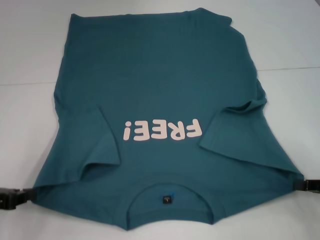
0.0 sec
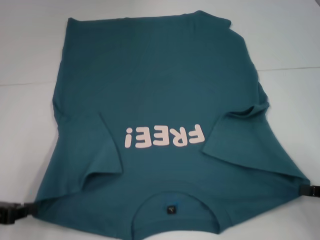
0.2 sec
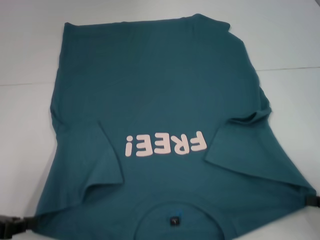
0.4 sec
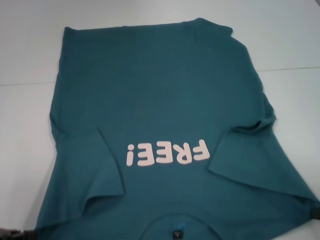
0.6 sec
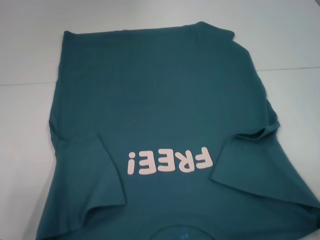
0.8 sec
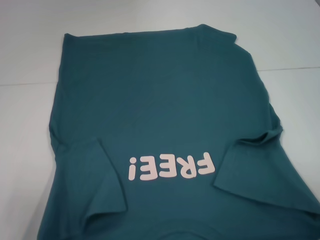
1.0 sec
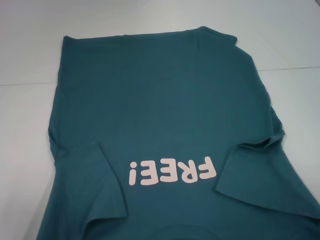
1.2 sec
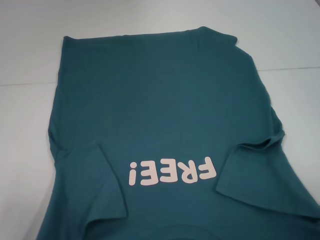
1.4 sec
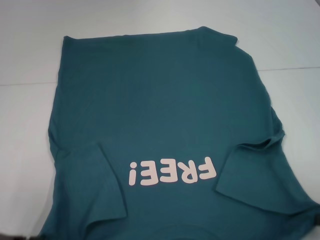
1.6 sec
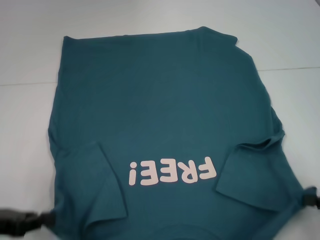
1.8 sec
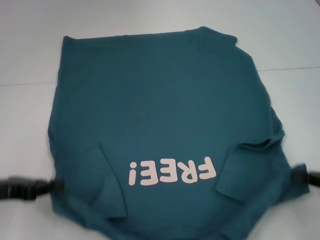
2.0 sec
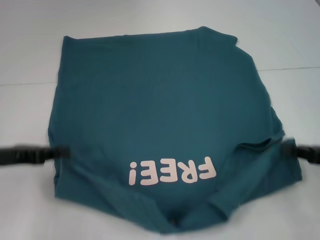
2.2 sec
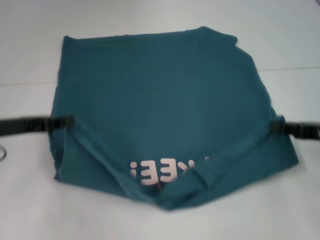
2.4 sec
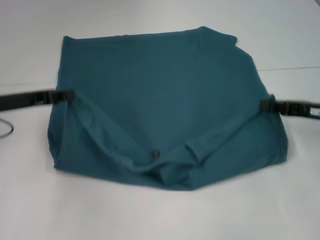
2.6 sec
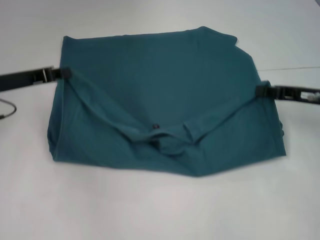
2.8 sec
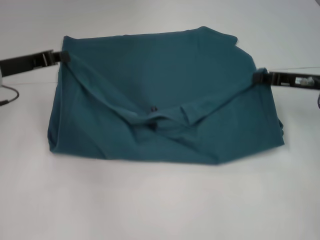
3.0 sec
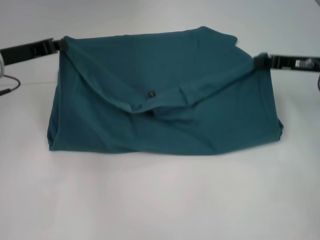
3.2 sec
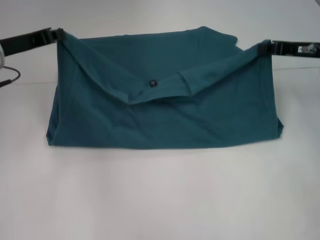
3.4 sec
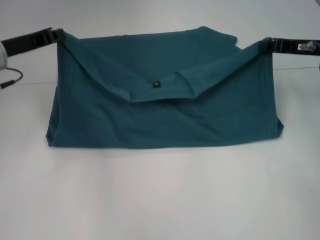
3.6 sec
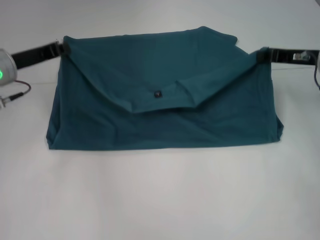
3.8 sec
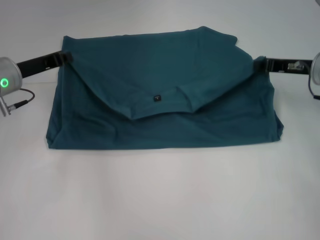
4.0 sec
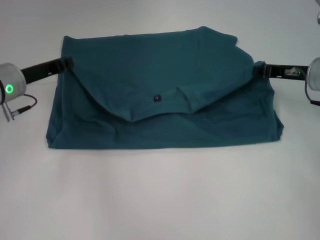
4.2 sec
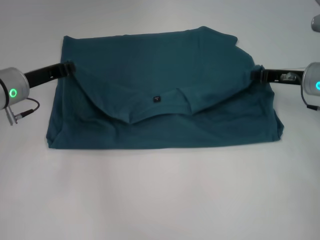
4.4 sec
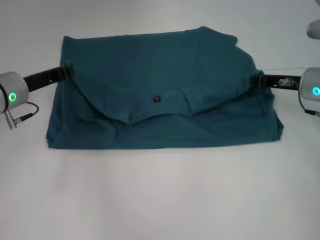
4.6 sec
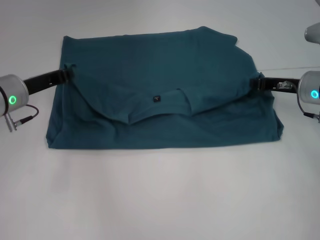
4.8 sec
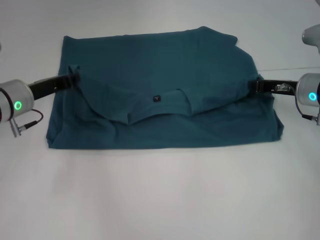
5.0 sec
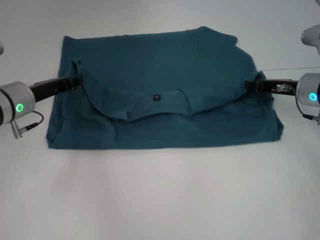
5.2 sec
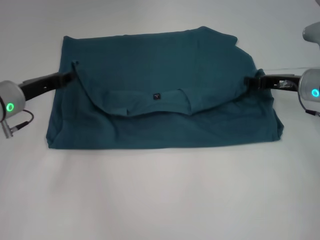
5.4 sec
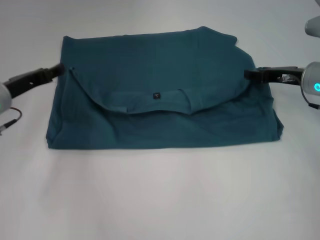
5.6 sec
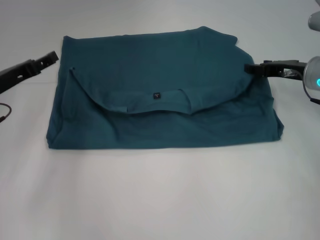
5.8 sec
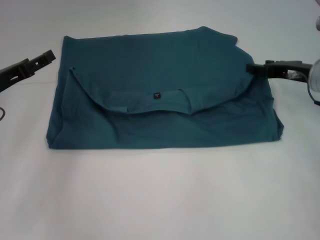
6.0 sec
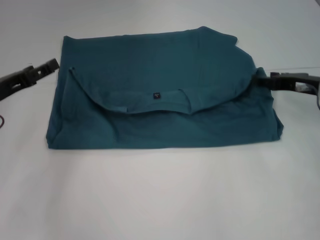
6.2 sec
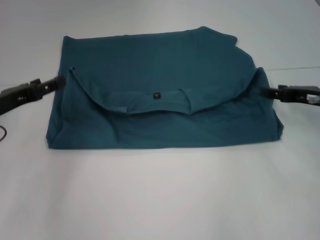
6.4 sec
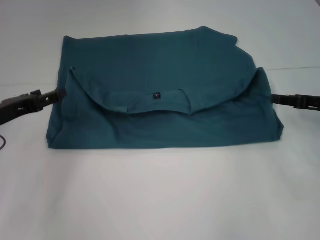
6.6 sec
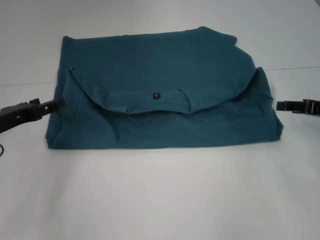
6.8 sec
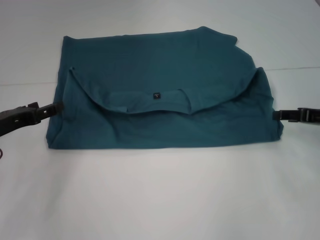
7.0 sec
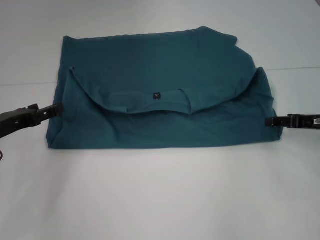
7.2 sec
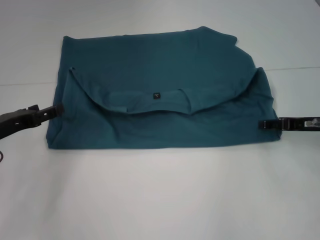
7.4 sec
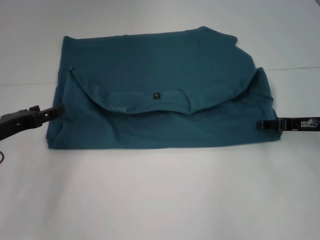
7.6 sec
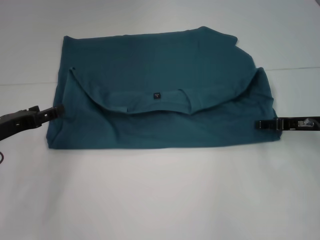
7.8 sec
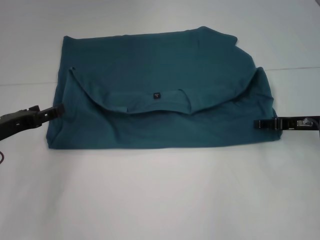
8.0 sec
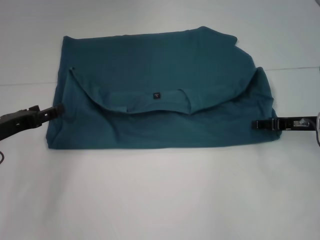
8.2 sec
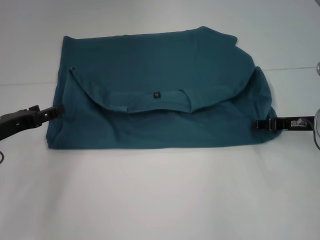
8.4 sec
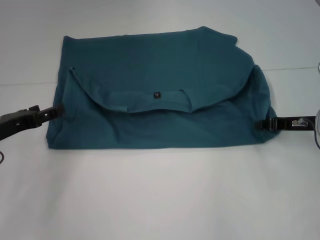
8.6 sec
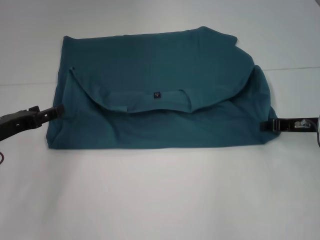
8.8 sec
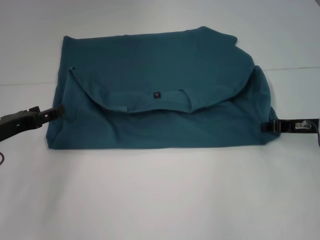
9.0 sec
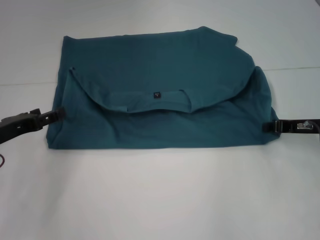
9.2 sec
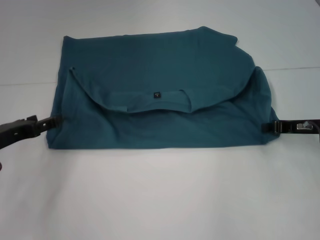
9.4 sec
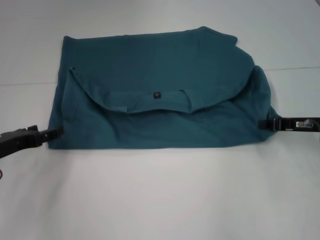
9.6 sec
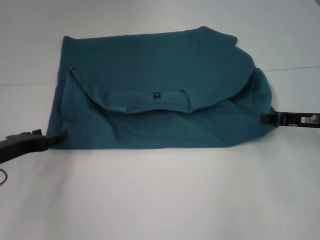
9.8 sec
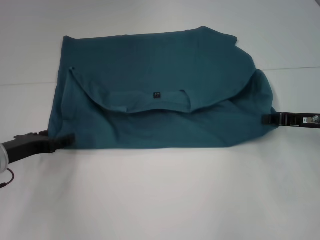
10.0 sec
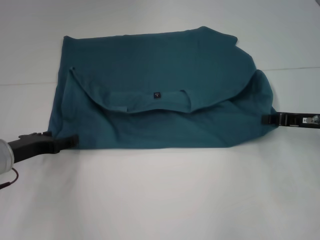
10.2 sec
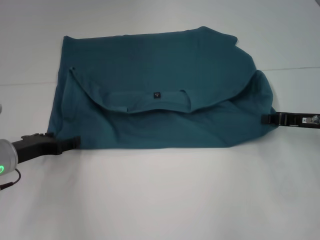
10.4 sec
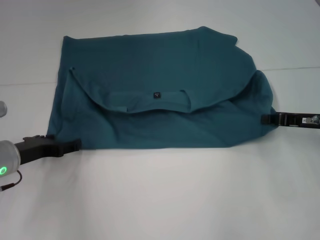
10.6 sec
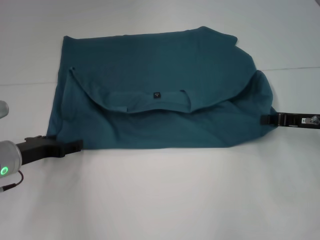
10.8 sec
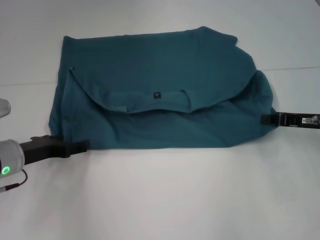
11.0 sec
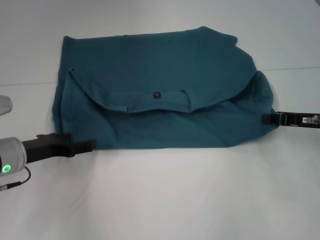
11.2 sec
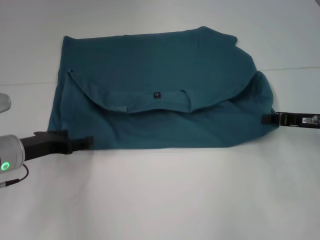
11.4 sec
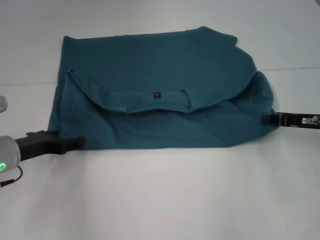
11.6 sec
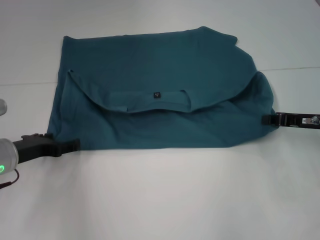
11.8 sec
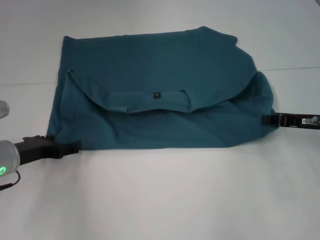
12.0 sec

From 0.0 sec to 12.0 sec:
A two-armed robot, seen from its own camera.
Step, from 0.0 sec to 5.4 sec: Fold the clothes to the left.
Step, from 0.0 sec to 5.4 sec: Fold the clothes to the right.
From 0.0 sec to 1.6 sec: The two grippers go approximately 5 cm backward.
From 1.6 sec to 3.0 sec: The left gripper goes approximately 20 cm forward and upward. Meanwhile the right gripper moves forward, about 25 cm.
From 3.0 sec to 4.4 sec: The left gripper changes place by roughly 5 cm.
From 4.4 sec to 6.0 sec: The right gripper opens up. Meanwhile the left gripper ends up about 5 cm from where it was, and opens up.
From 6.0 sec to 7.6 sec: The left gripper ends up some 5 cm from where it was, while the right gripper shifts by approximately 5 cm.
From 7.6 sec to 9.0 sec: The right gripper closes its fingers.
From 9.0 sec to 10.4 sec: The grippers move only a little.
From 10.4 sec to 12.0 sec: There are only small adjustments of the grippers.

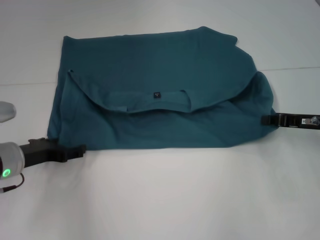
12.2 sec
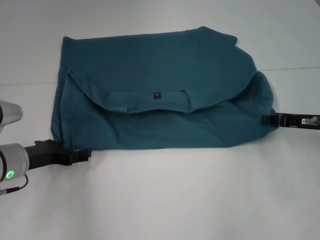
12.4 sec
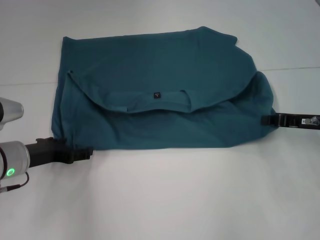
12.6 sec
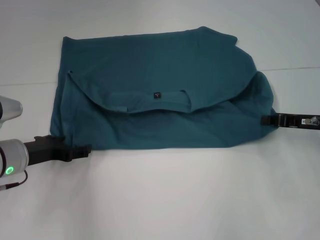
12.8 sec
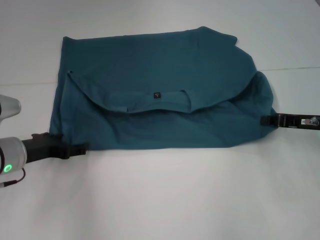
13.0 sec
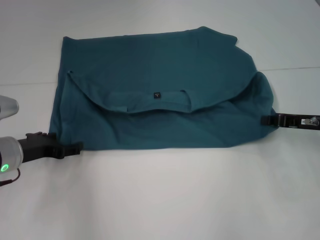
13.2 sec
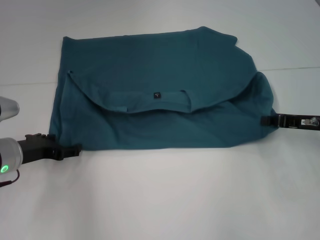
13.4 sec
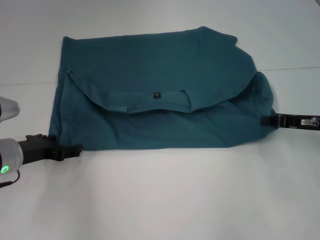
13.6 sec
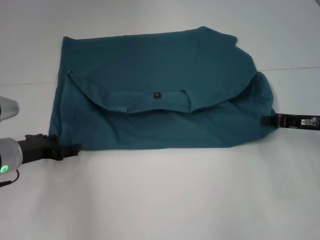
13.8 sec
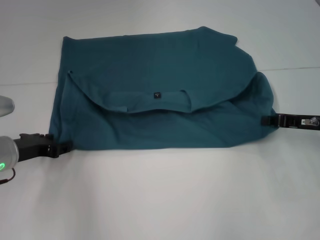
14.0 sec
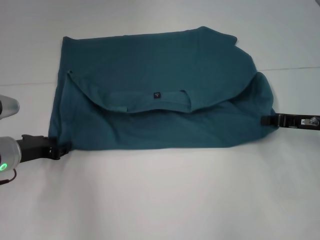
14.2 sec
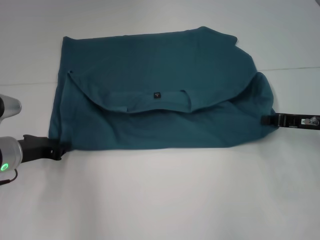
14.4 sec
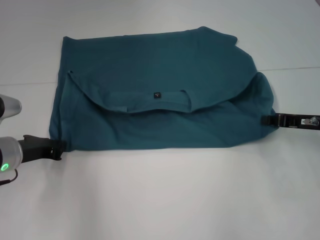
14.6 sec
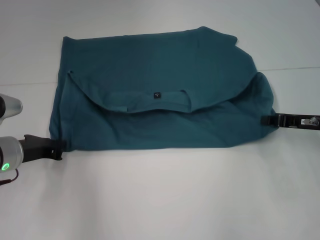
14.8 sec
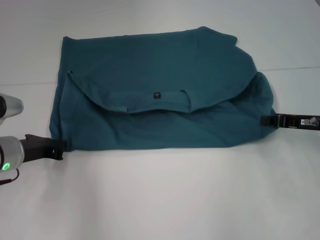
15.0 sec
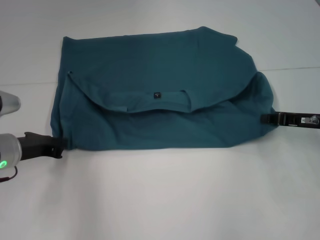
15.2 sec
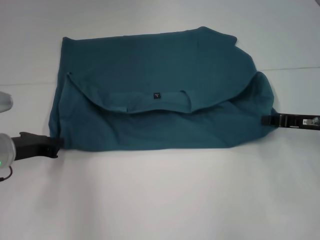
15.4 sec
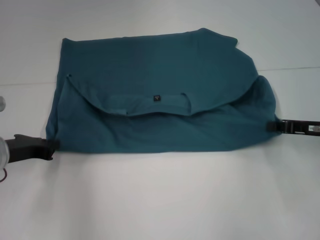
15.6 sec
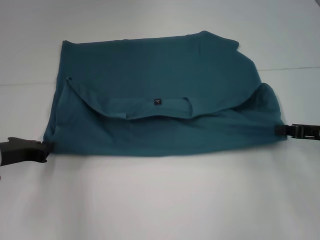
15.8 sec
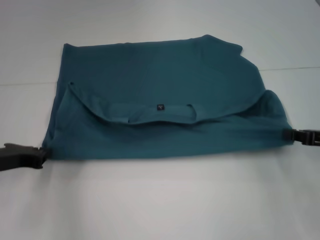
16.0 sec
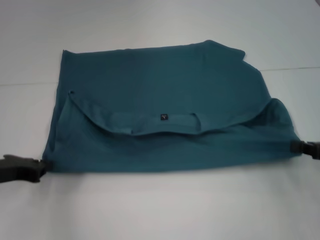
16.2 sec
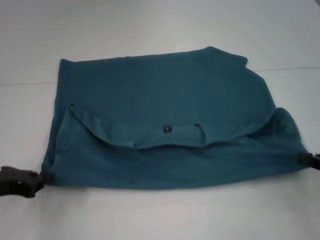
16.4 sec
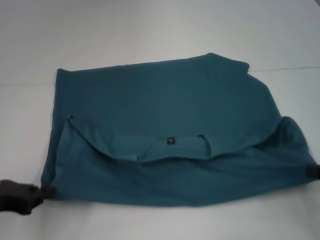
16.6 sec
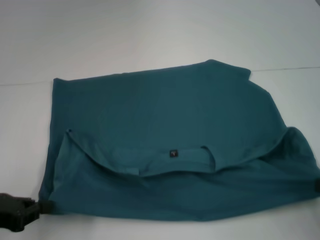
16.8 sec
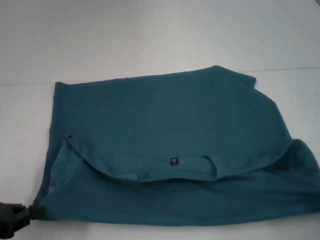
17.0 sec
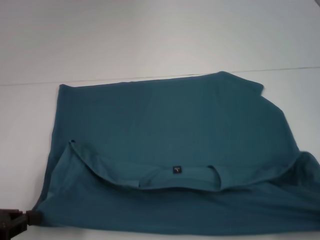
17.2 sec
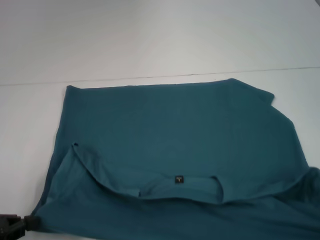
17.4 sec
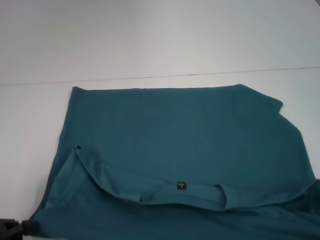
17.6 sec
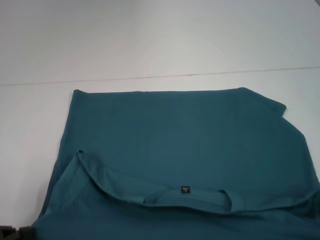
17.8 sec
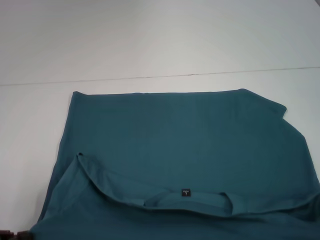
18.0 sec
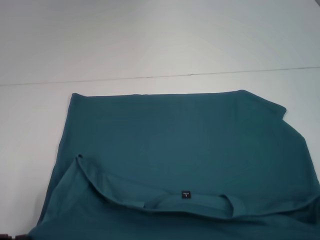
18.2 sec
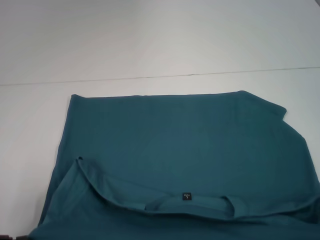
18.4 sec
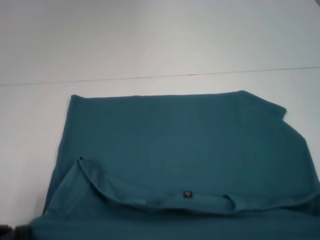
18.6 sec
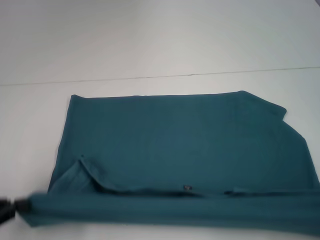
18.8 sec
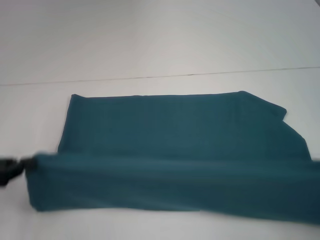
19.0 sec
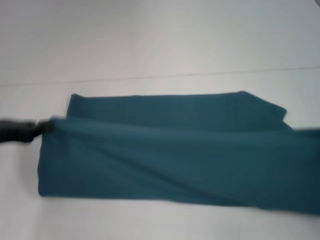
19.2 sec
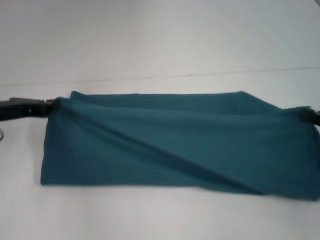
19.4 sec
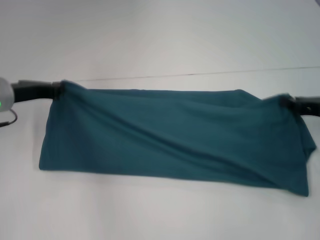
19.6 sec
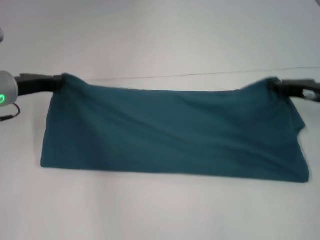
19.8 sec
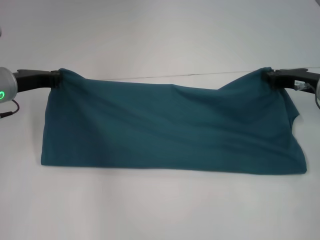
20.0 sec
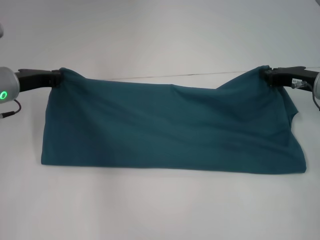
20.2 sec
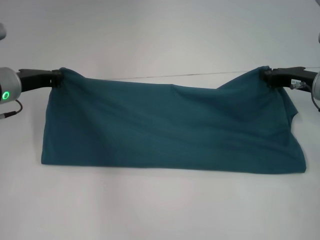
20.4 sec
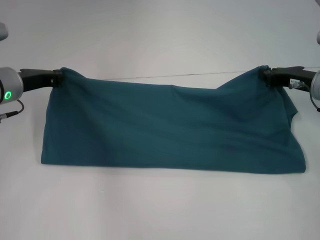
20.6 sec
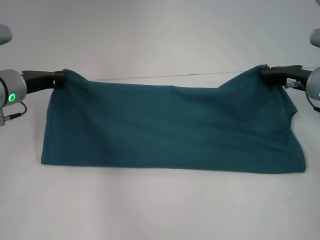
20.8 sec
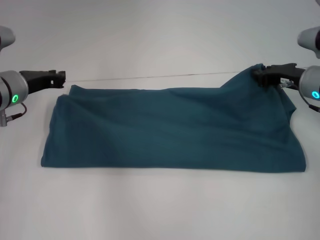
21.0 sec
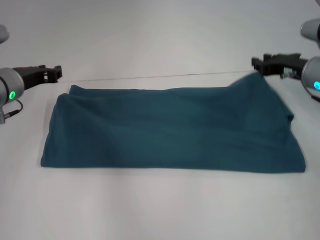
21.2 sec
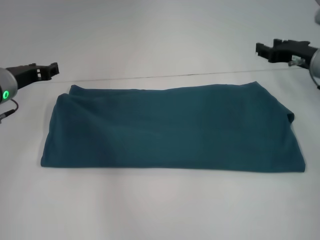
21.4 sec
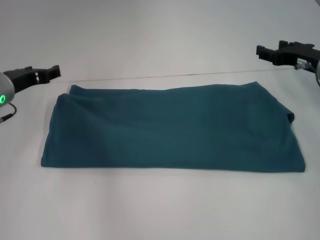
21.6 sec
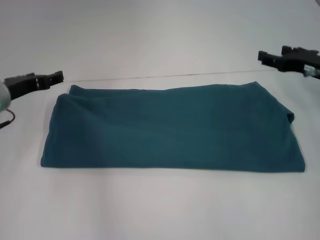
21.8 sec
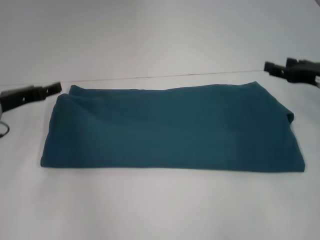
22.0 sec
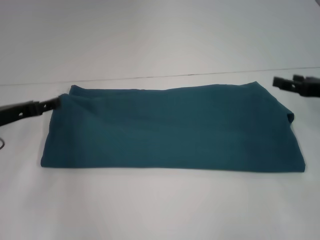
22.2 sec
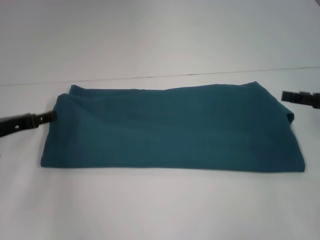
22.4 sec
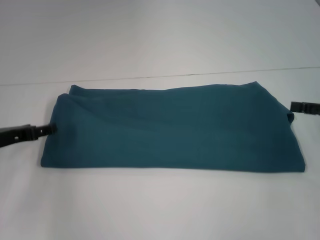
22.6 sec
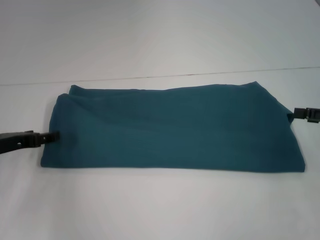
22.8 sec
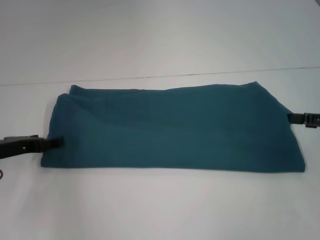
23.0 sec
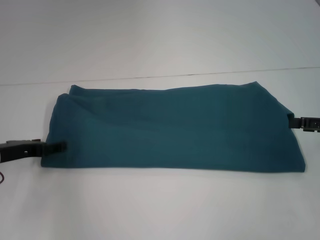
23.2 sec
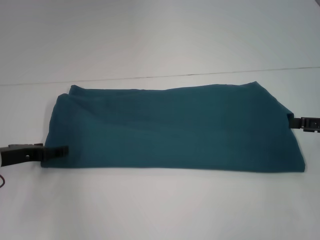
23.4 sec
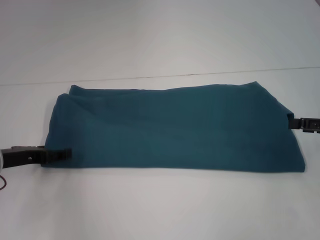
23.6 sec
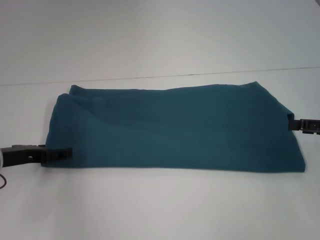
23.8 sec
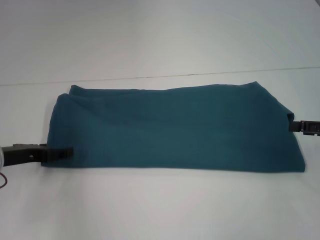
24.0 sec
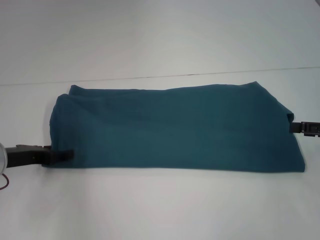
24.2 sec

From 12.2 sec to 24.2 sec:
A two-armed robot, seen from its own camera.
Step, from 12.2 sec to 18.0 sec: Pull the clothes with your left hand.
Step, from 12.2 sec to 18.0 sec: Pull the clothes with your right hand.
Step, from 18.2 sec to 21.0 sec: Fold the clothes to the left.
From 12.2 sec to 13.8 sec: The grippers move only a little.
From 13.8 sec to 15.2 sec: The left gripper closes its fingers.
From 15.2 sec to 16.6 sec: The left gripper moves backward and to the left, approximately 10 cm. The right gripper goes some 15 cm backward and to the right.
From 16.6 sec to 18.2 sec: The left gripper goes some 5 cm backward; the right gripper goes some 15 cm backward.
From 18.2 sec to 19.8 sec: The left gripper shifts roughly 25 cm forward and to the right, while the right gripper moves forward, roughly 30 cm.
From 19.8 sec to 21.2 sec: The right gripper ends up roughly 5 cm from where it was.
From 21.2 sec to 22.6 sec: The right gripper moves backward and to the right, some 15 cm, and opens its fingers. The left gripper is displaced backward and to the left by about 10 cm, and opens up.
From 22.6 sec to 24.2 sec: The grippers move only a little.
